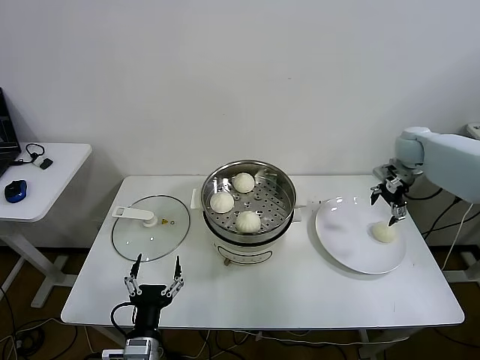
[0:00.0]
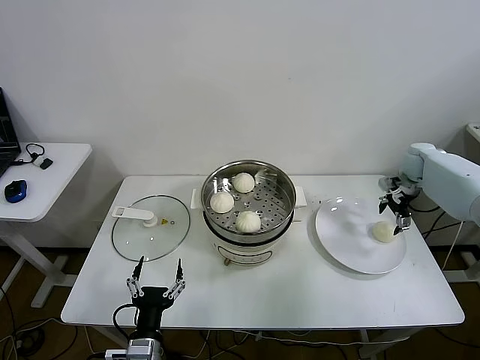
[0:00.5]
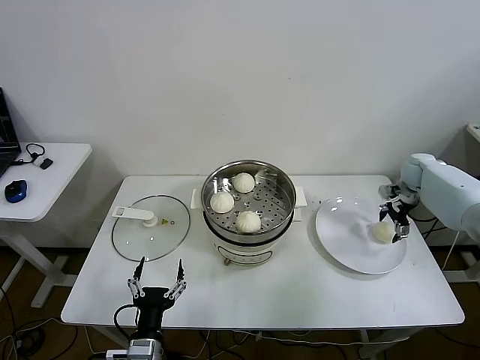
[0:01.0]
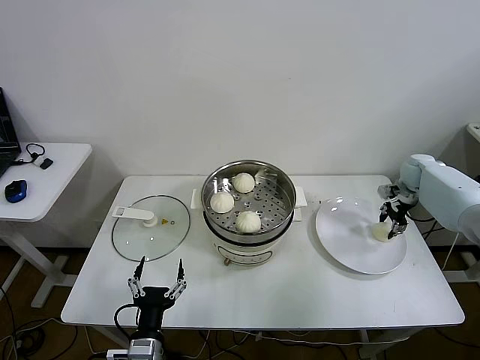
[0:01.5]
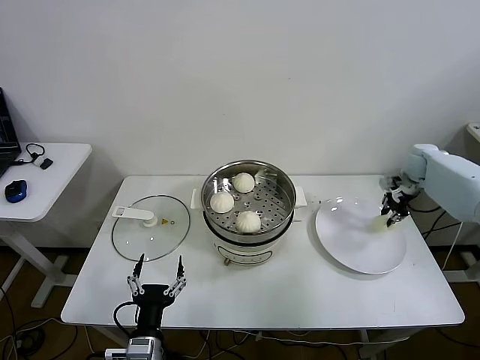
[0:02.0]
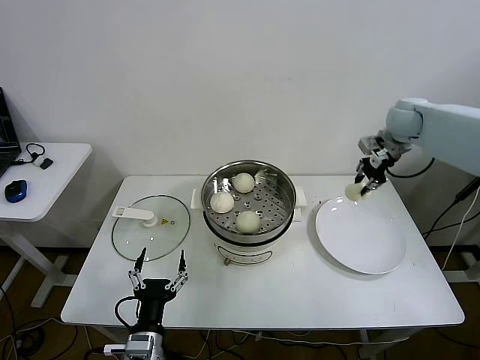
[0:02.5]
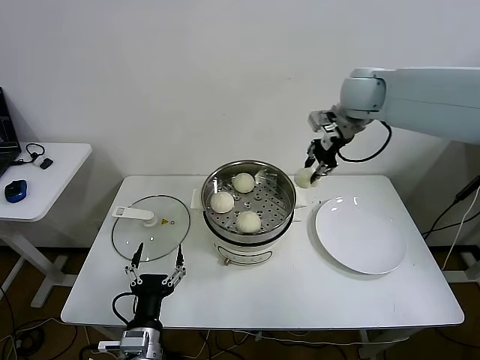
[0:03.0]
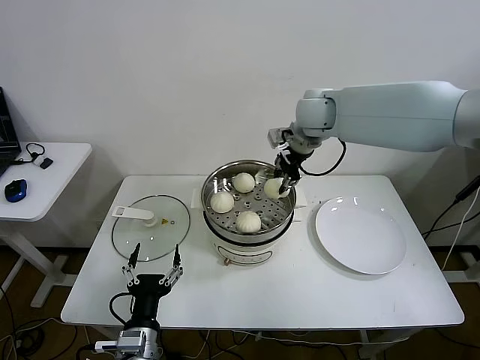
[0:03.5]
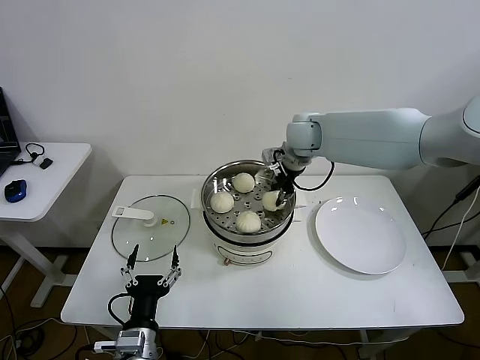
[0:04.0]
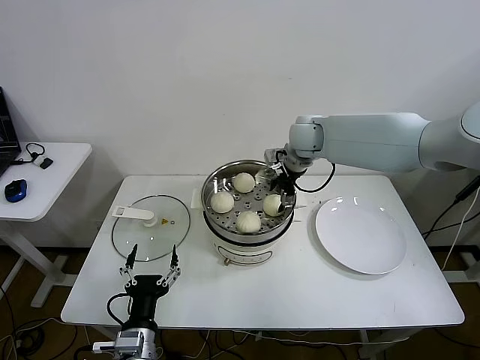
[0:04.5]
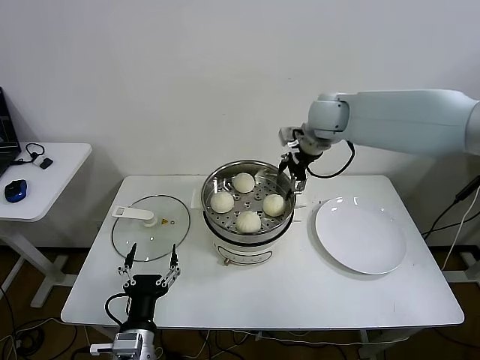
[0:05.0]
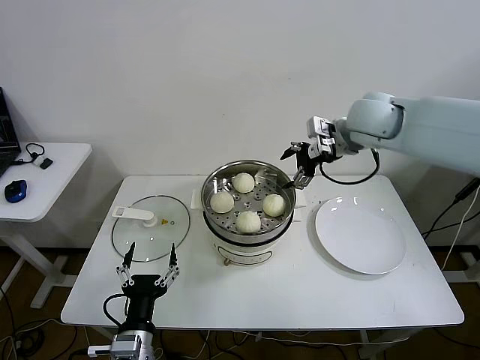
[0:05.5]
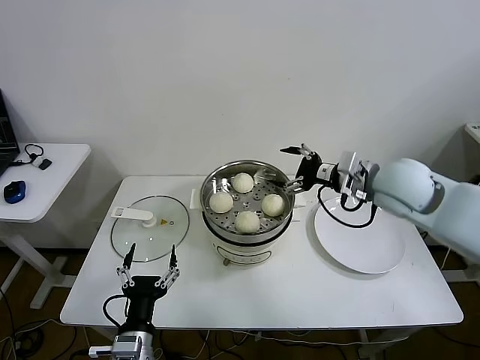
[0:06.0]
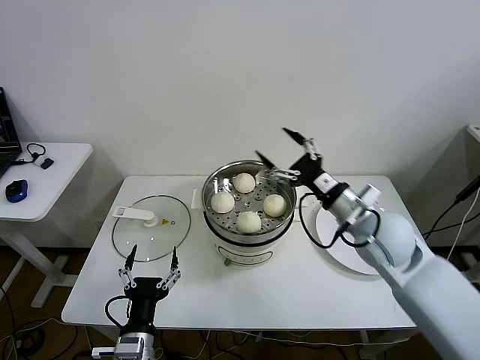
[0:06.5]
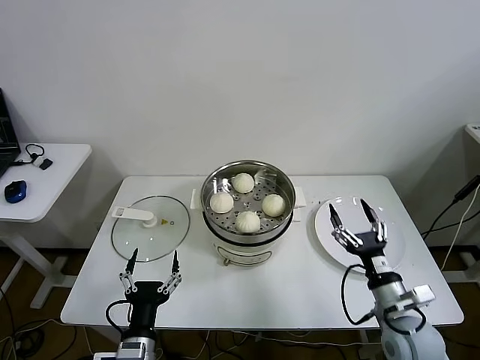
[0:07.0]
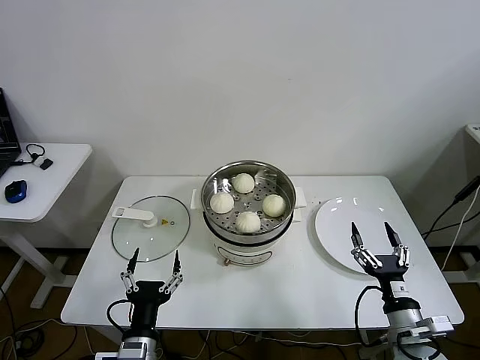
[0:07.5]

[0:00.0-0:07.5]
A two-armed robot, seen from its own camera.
Step, 0:02.0 to 0:04.5: Place the baozi on the steamer with right gripper.
0:00.0 to 0:02.0: The right gripper travels downward and to the right by about 10 cm, and closes up.
0:02.0 to 0:04.0: The right gripper heads to the left, covering roughly 35 cm.
0:04.0 to 0:05.5: The right gripper heads to the right, upward and backward, covering about 15 cm, and opens up.
0:05.5 to 0:07.5: The right gripper moves backward and downward, approximately 50 cm.
